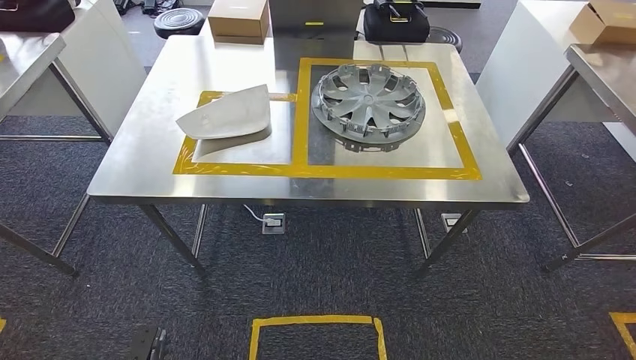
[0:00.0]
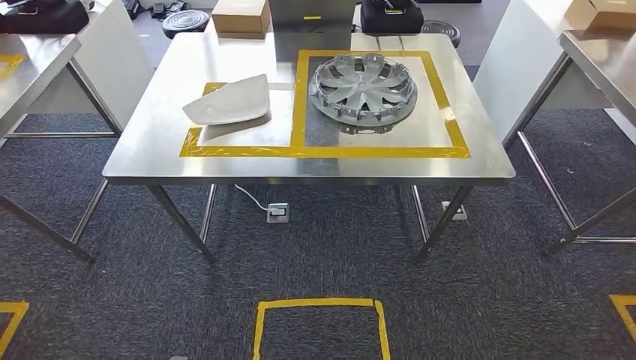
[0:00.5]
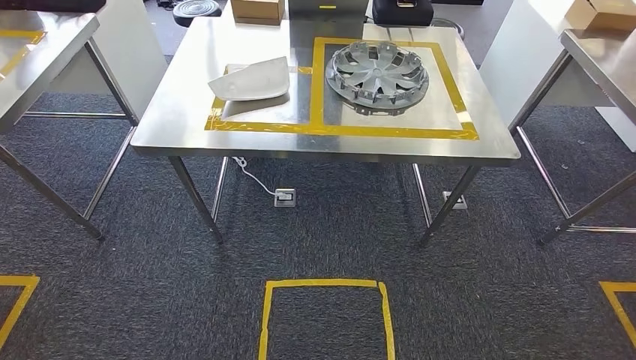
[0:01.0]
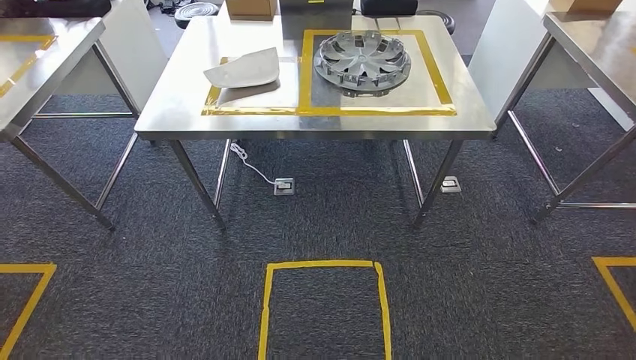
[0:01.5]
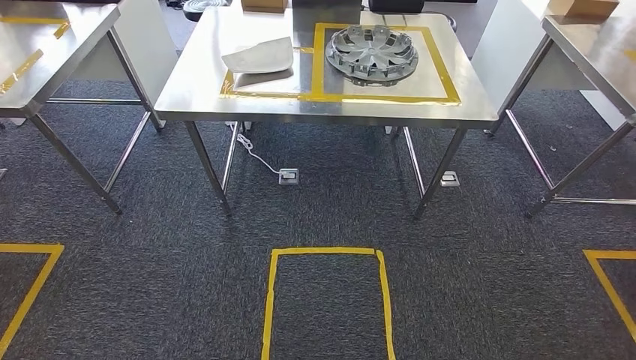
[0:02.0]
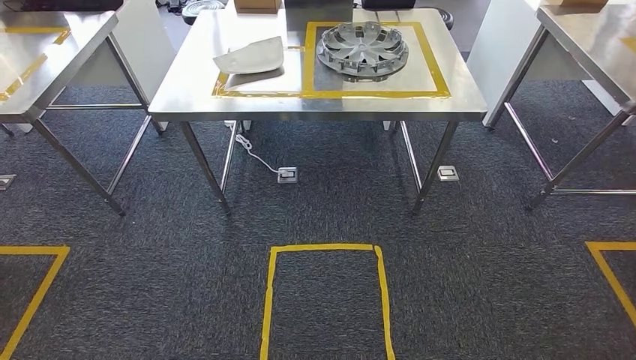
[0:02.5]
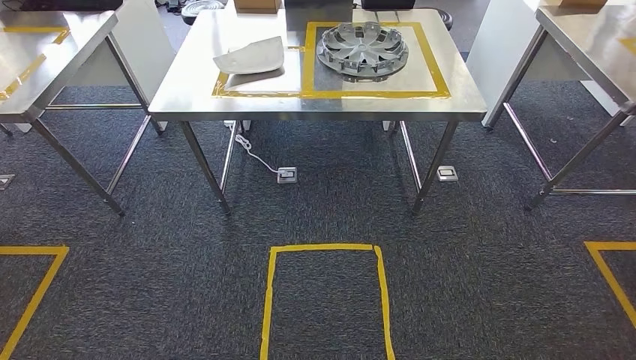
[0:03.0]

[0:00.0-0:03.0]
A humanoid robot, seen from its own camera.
Step, 0:00.0 to 0:03.0: Return to the initial position at the workbench.
0:01.5 to 0:03.0: The hands move only a little.
